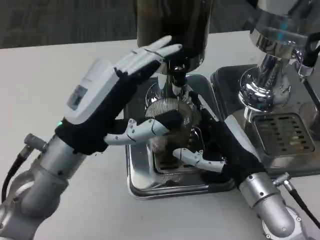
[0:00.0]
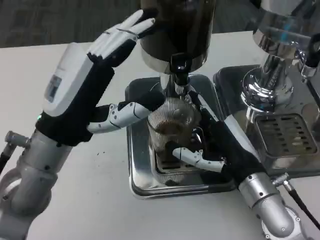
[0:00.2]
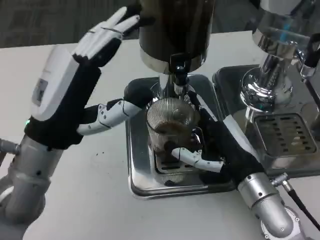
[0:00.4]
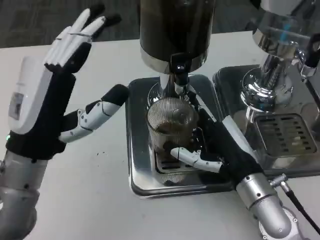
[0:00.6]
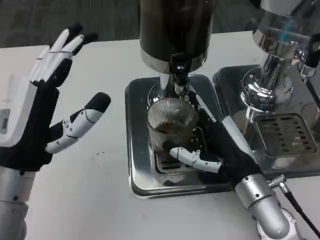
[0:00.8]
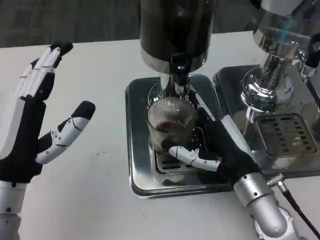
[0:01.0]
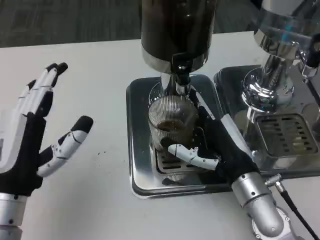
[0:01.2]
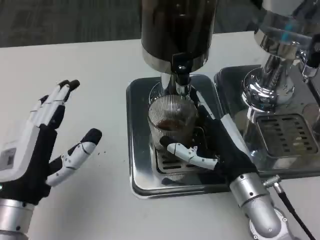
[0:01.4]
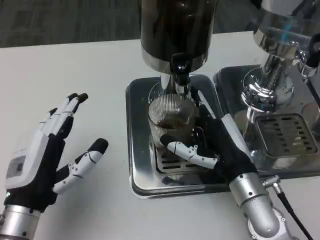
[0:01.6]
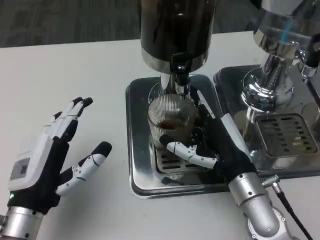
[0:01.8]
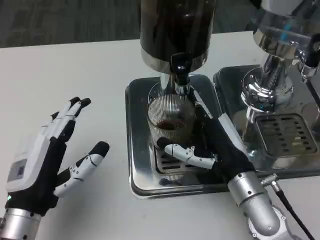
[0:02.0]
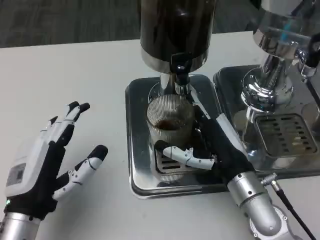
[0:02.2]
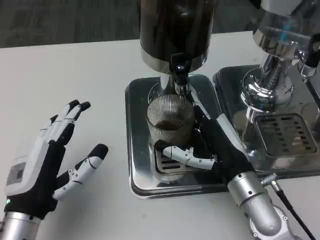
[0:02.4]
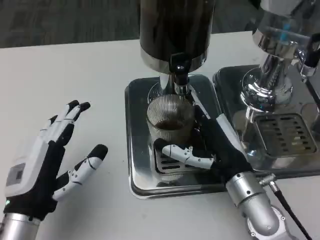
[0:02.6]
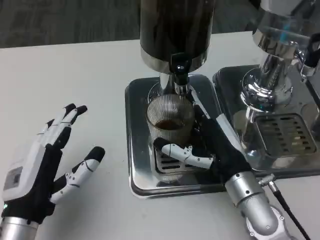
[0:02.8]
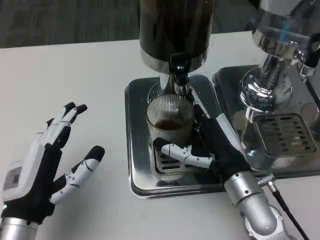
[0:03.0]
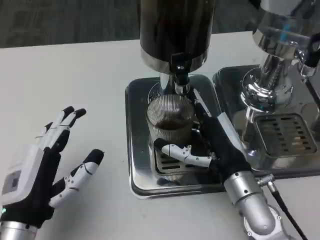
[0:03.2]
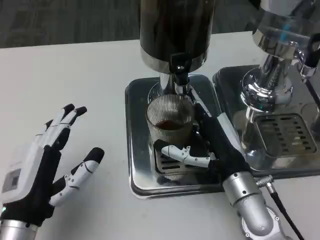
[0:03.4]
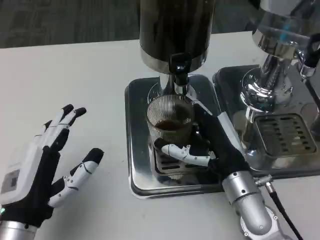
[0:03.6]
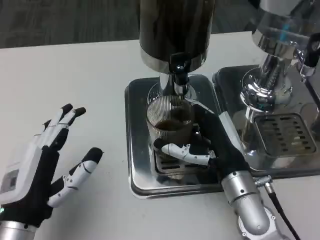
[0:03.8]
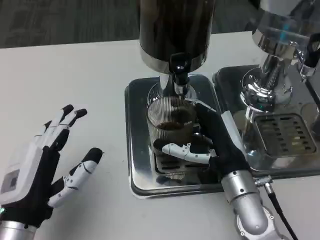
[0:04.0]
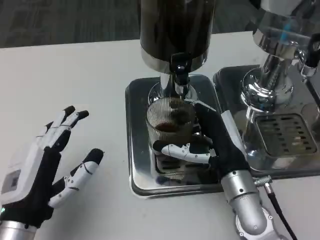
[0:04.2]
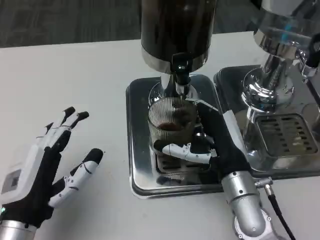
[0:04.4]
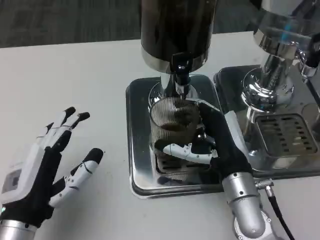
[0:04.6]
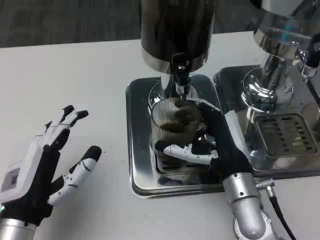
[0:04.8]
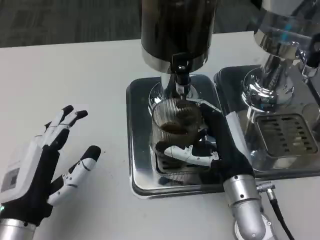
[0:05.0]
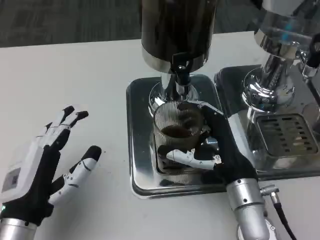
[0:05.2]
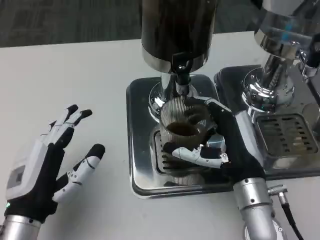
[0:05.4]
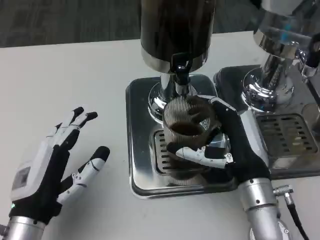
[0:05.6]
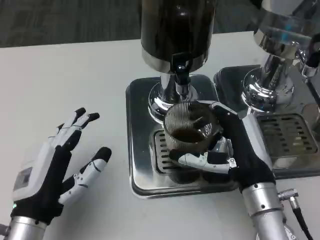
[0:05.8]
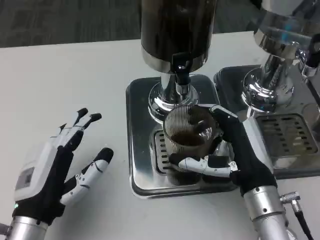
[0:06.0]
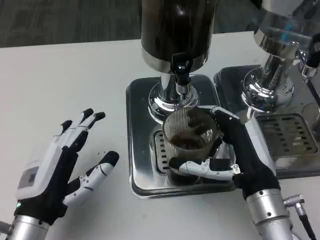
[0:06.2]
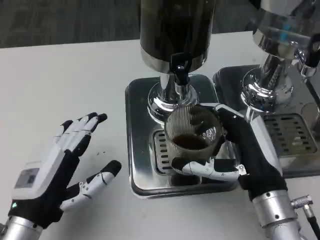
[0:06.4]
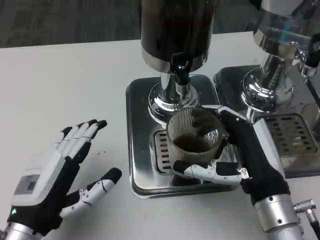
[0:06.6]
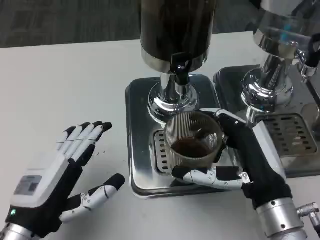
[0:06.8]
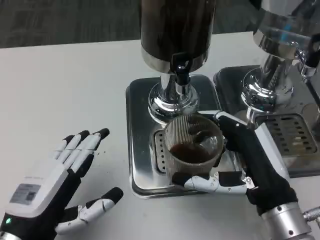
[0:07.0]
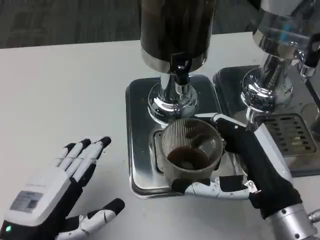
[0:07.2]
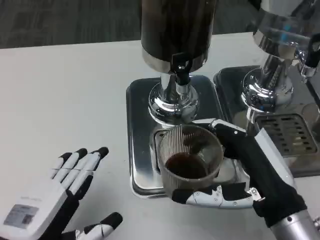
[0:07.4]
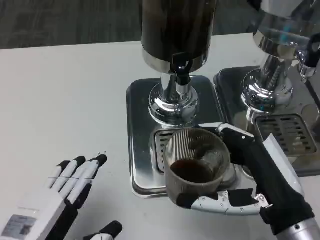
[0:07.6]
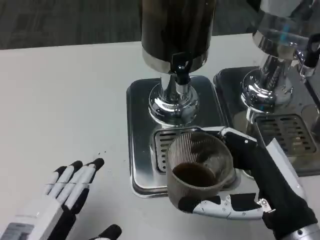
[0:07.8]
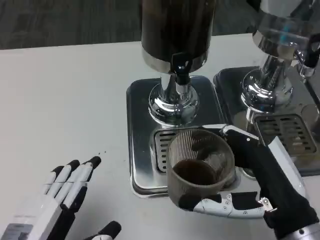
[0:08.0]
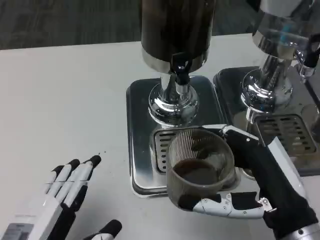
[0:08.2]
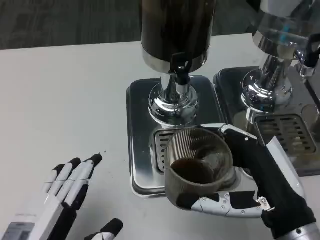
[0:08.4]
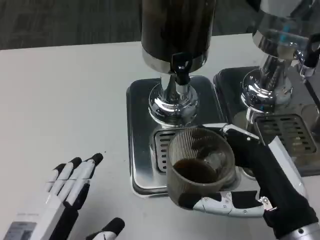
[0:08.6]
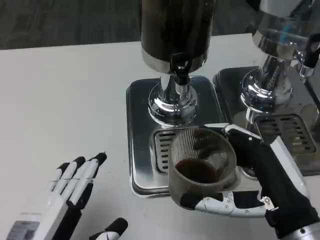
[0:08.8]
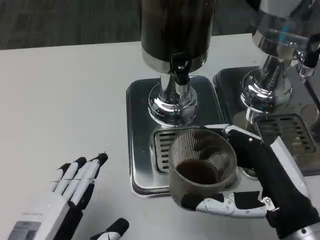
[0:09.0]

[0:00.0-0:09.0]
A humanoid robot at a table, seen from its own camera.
Task of the whole recording: Grasp the cup under the faucet to collect the drink, then remove the cup.
0:00.0 to 0:01.6: The left hand heads downward and backward, covering approximately 10 cm.
0:01.6 to 0:04.4: There are only small adjustments of the hands.
0:06.0 to 0:07.6: Both hands move backward, approximately 5 cm.
0:07.6 to 0:09.0: The hands make only small movements.

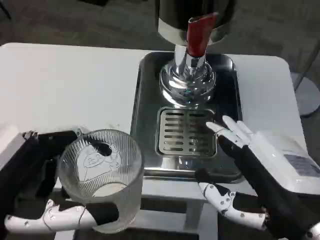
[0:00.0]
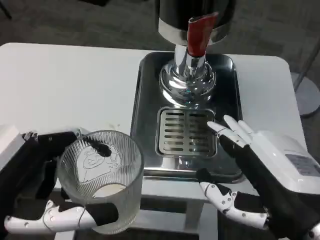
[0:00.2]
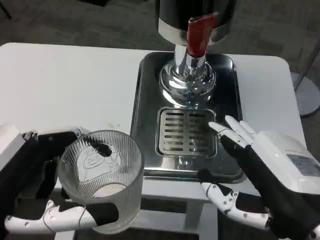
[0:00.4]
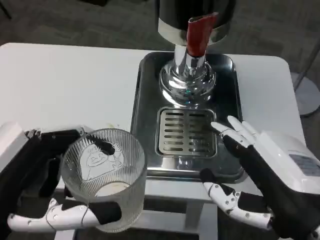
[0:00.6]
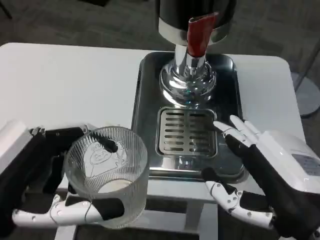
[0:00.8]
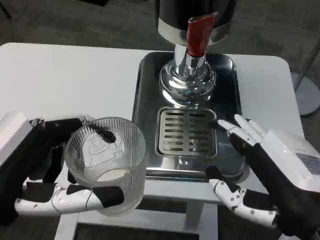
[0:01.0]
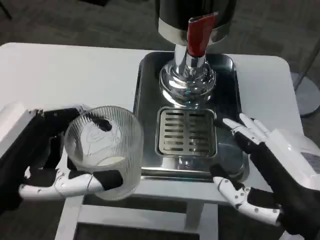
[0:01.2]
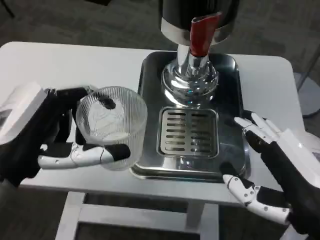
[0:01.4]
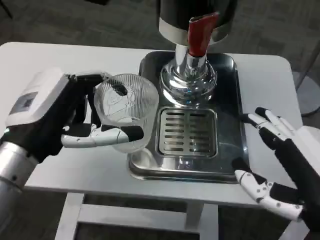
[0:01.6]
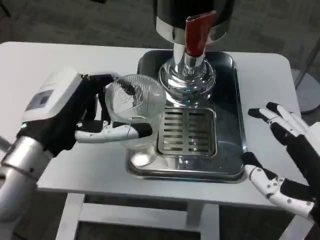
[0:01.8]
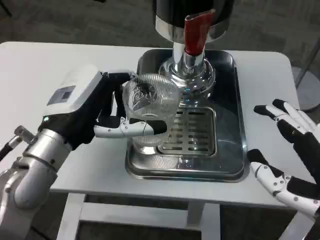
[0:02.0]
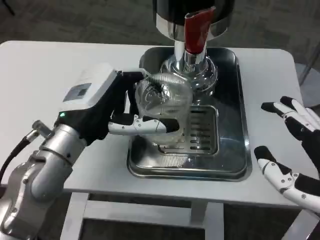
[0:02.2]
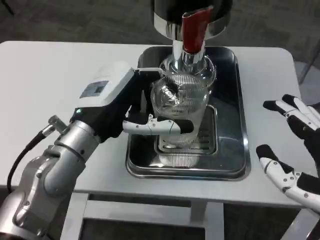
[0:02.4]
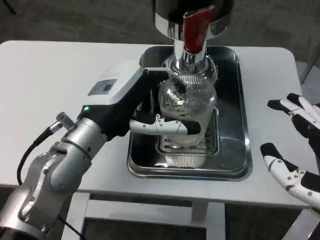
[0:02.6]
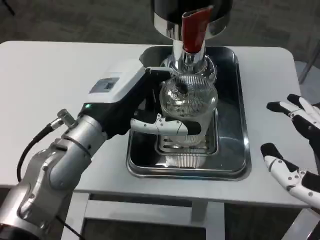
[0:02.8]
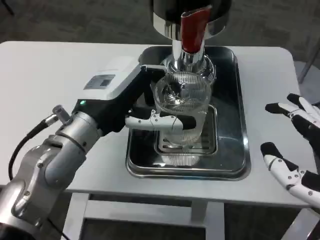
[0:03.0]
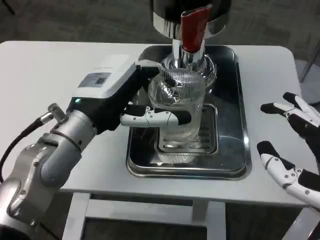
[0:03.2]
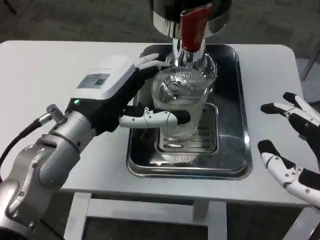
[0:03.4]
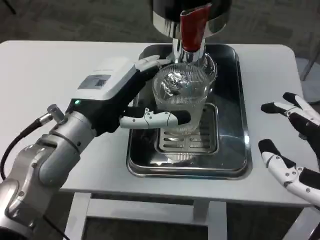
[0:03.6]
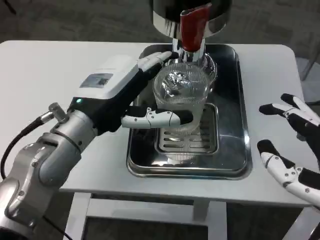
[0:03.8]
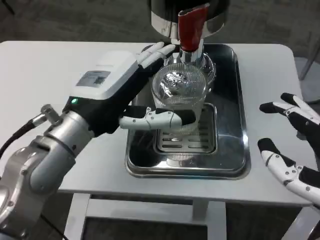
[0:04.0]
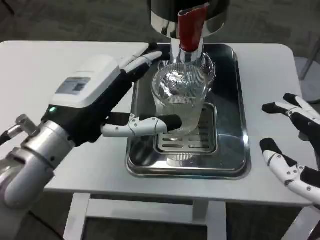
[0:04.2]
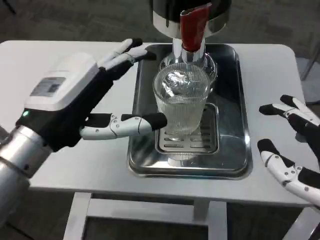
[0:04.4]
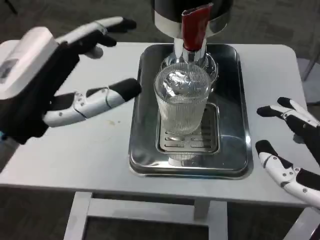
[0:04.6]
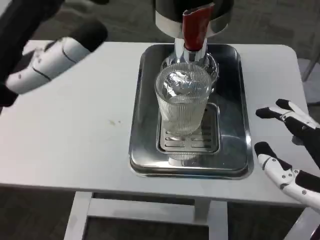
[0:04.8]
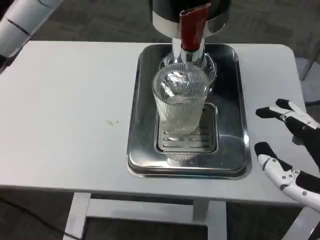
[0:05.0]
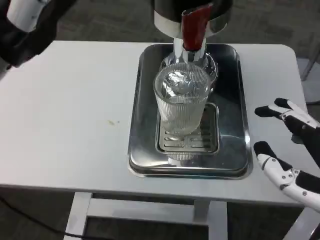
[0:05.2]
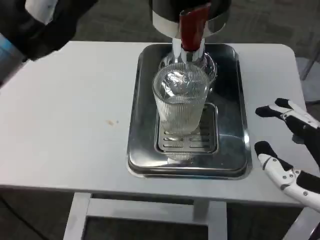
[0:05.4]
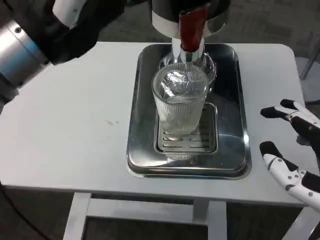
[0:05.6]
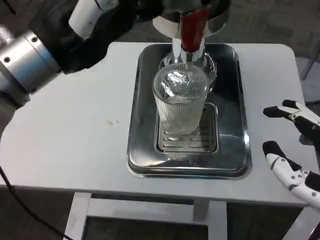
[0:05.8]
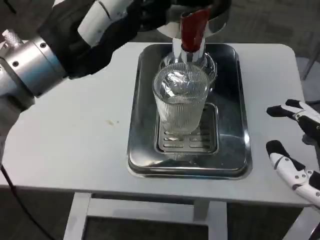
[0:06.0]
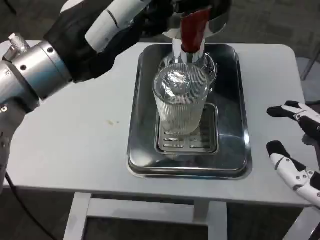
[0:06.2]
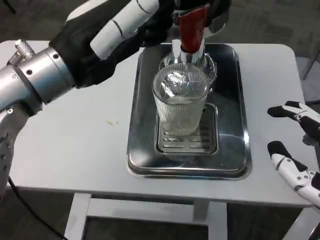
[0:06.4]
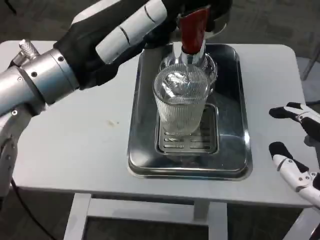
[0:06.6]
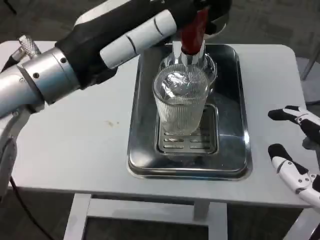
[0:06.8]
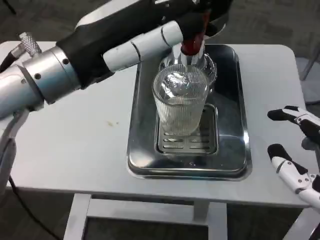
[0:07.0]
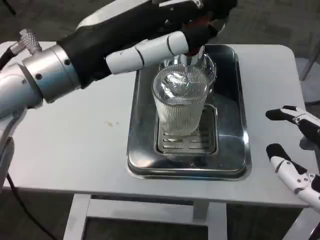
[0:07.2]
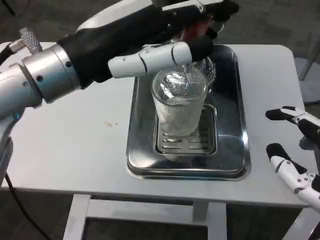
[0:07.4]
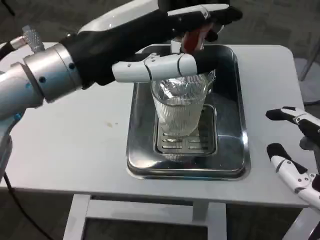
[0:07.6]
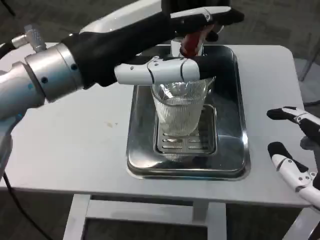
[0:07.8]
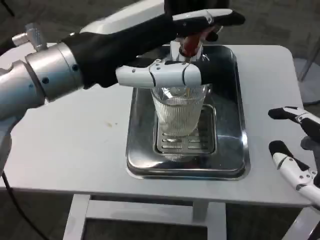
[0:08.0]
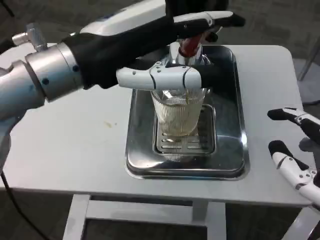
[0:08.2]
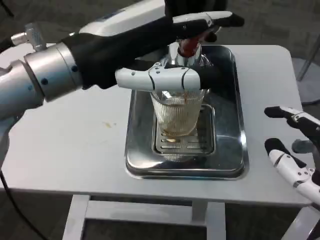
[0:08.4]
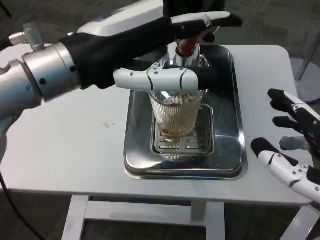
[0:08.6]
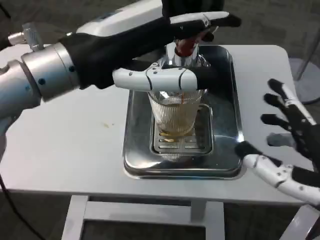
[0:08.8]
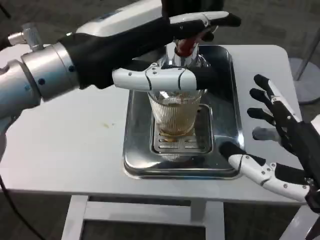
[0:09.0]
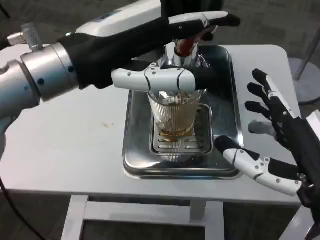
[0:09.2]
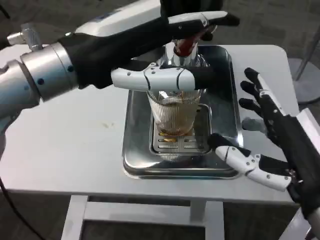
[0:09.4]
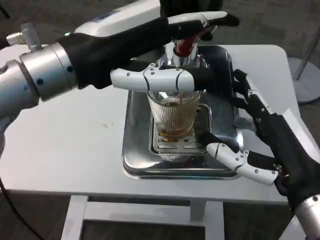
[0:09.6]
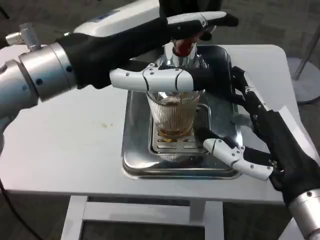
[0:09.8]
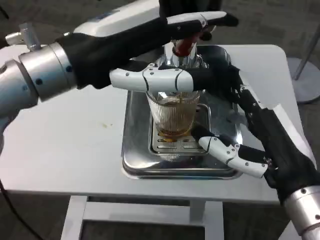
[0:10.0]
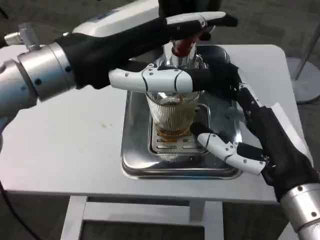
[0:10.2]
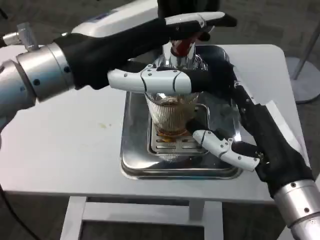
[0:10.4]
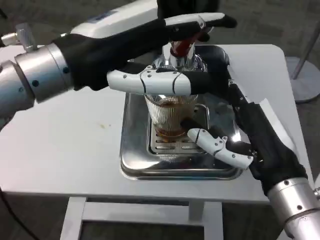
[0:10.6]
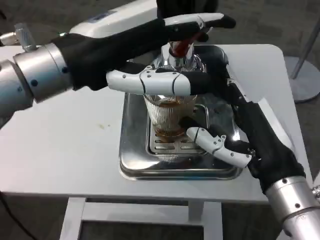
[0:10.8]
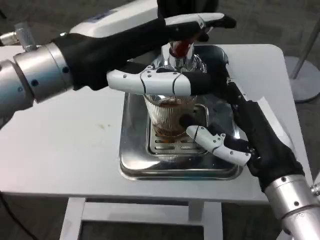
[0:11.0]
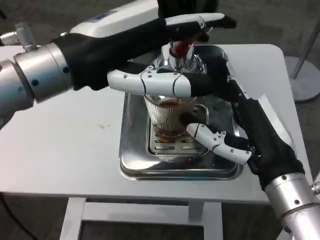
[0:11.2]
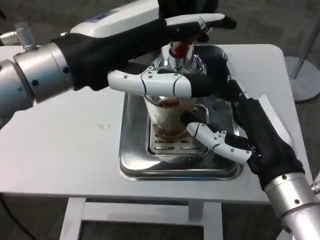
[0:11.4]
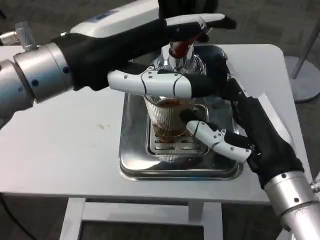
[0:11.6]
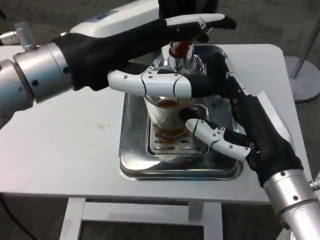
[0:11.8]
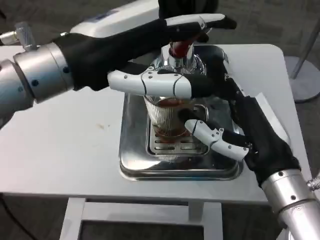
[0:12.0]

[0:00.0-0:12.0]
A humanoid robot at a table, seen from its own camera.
Task of the whole recording: Grasp the cup under the faucet to collect the drink, then remove the cup.
0:00.0 to 0:01.6: The left hand shifts some 10 cm forward.
0:01.6 to 0:03.0: The left hand moves forward and to the right, about 10 cm.
0:03.0 to 0:04.4: The left hand goes roughly 5 cm backward.
0:04.4 to 0:06.0: The left hand is displaced upward by roughly 10 cm.
0:09.0 to 0:10.4: The right hand goes roughly 5 cm forward.
0:10.4 to 0:12.0: The hands move only a little.

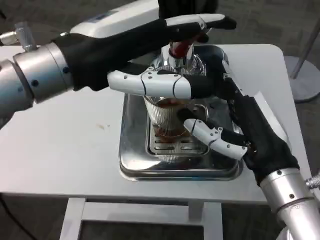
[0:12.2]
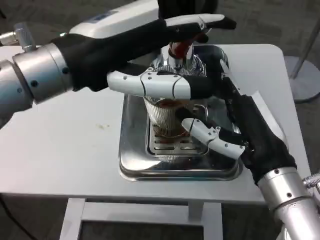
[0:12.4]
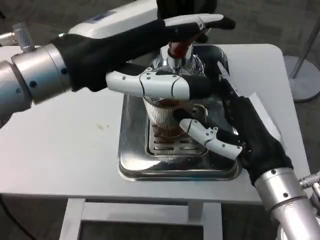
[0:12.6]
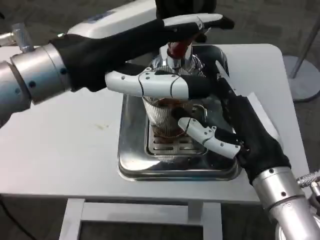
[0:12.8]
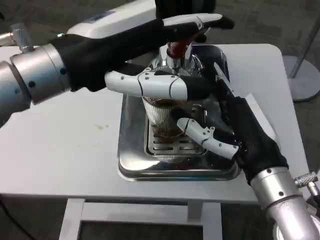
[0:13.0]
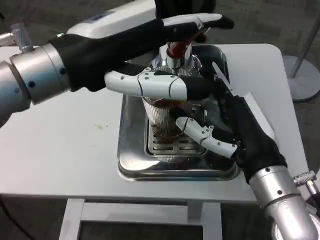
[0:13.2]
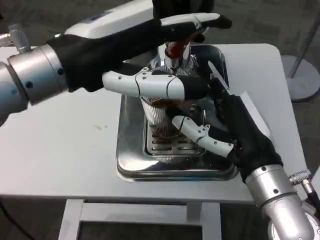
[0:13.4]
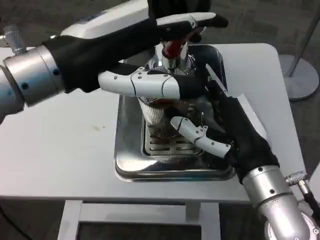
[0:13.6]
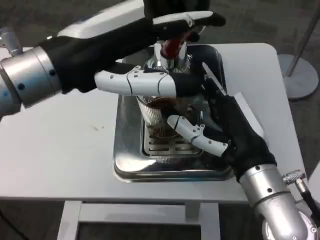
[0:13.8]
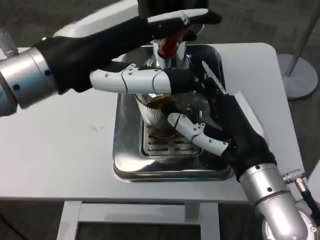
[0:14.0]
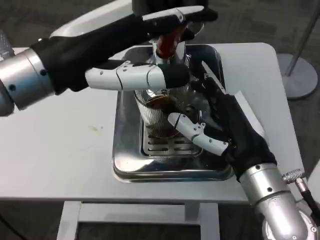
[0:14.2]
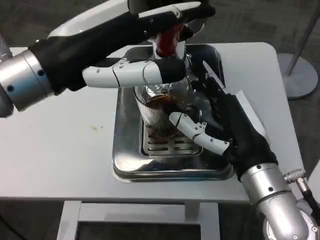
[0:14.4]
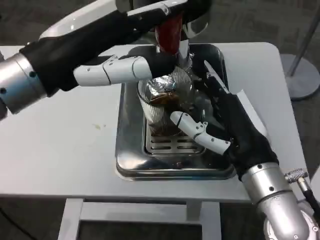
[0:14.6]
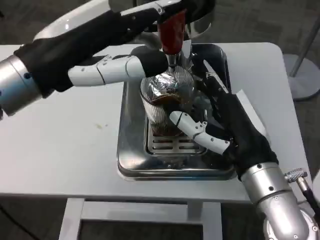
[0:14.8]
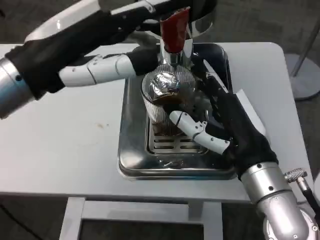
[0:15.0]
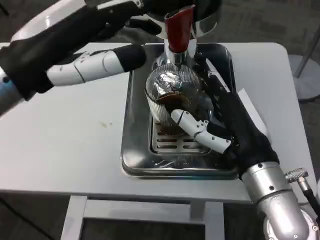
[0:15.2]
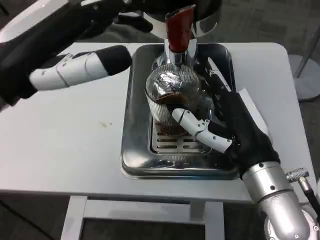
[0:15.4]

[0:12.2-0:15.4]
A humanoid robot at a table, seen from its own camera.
Task of the whole recording: Grasp the cup under the faucet to collect the drink, then remove the cup.
0:13.8 to 0:15.4: The left hand shifts by roughly 5 cm.
